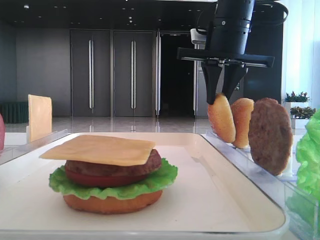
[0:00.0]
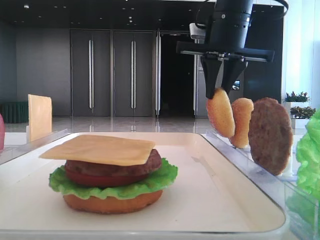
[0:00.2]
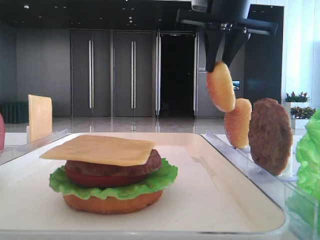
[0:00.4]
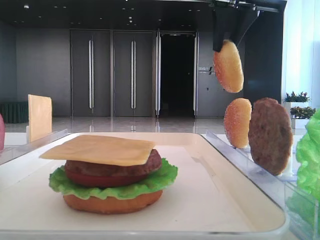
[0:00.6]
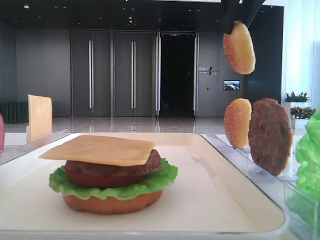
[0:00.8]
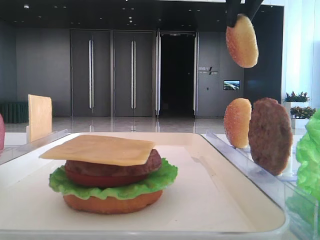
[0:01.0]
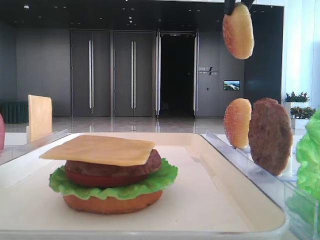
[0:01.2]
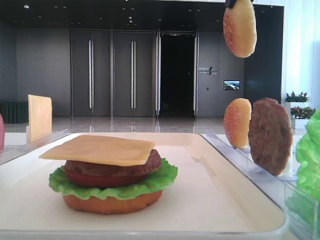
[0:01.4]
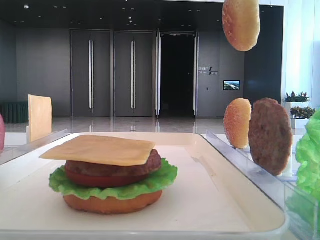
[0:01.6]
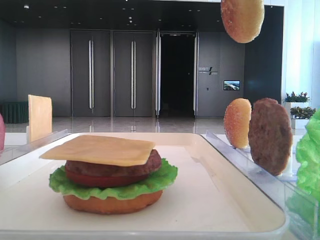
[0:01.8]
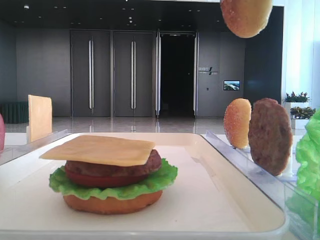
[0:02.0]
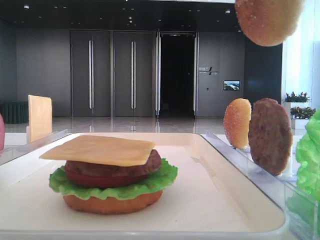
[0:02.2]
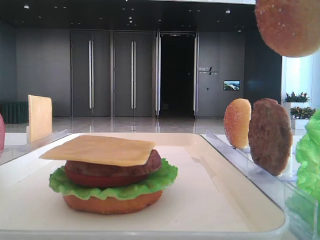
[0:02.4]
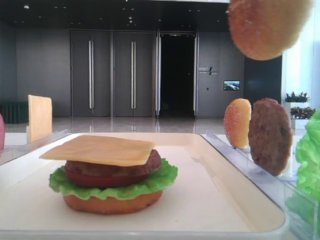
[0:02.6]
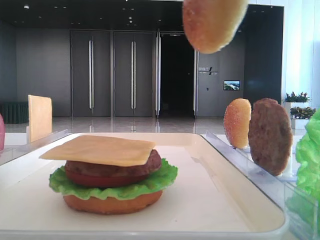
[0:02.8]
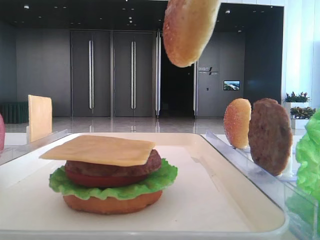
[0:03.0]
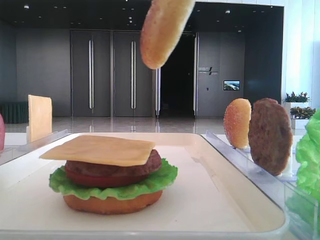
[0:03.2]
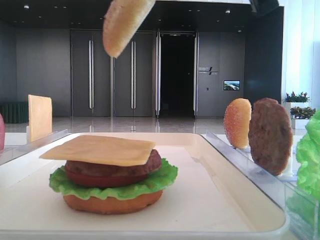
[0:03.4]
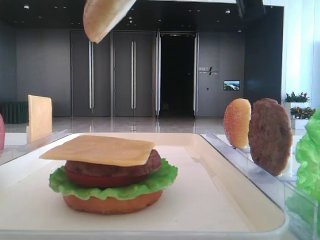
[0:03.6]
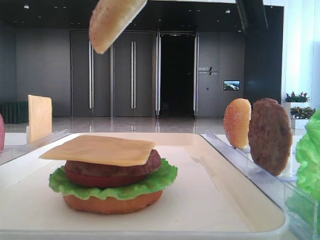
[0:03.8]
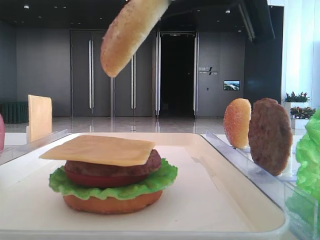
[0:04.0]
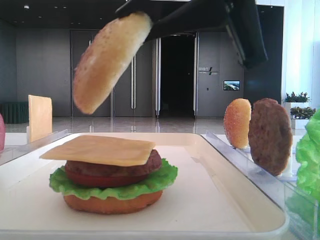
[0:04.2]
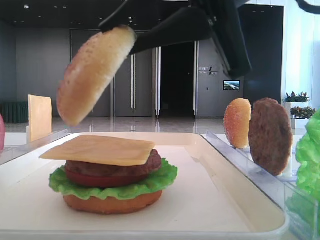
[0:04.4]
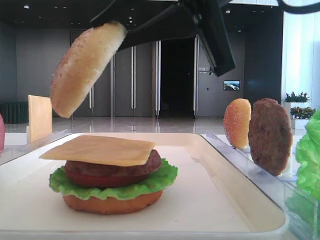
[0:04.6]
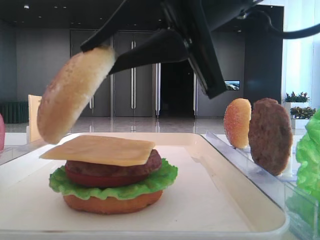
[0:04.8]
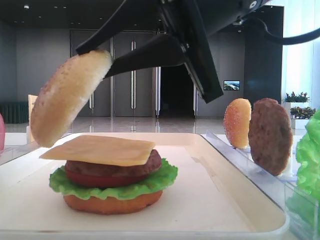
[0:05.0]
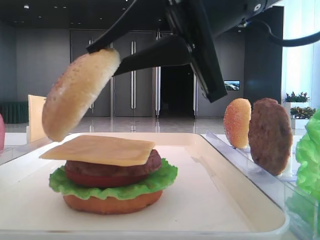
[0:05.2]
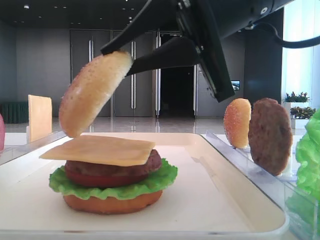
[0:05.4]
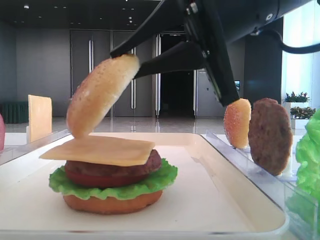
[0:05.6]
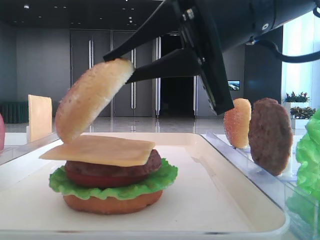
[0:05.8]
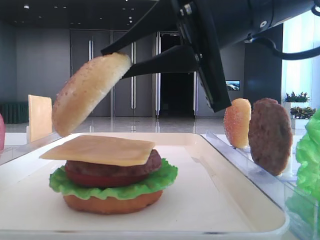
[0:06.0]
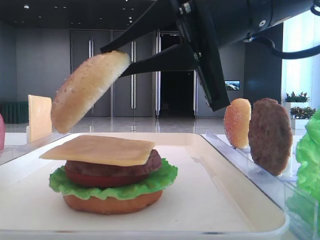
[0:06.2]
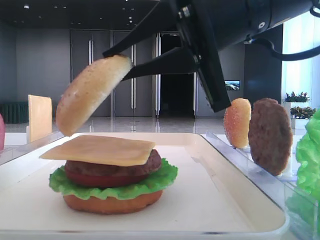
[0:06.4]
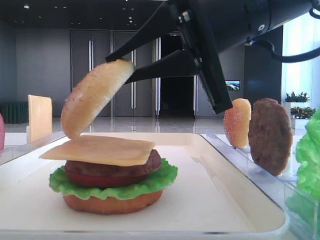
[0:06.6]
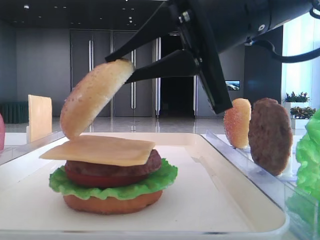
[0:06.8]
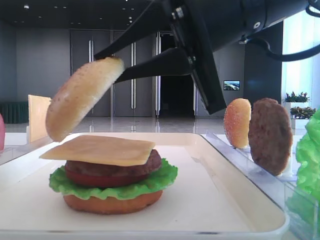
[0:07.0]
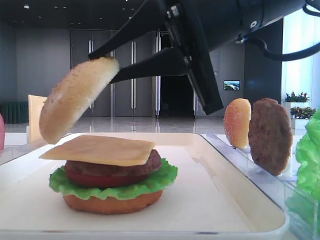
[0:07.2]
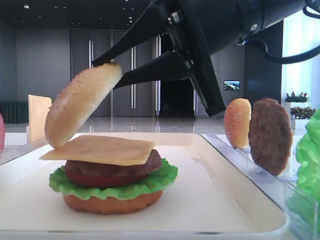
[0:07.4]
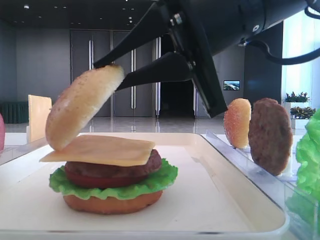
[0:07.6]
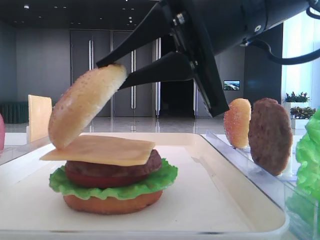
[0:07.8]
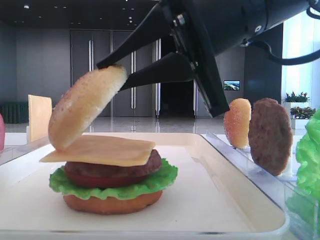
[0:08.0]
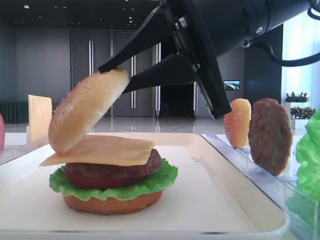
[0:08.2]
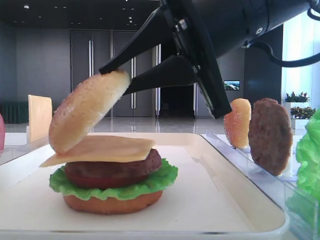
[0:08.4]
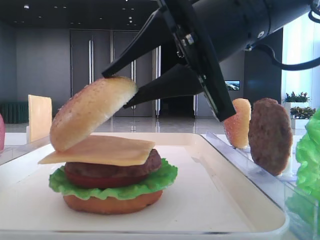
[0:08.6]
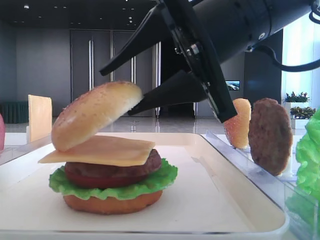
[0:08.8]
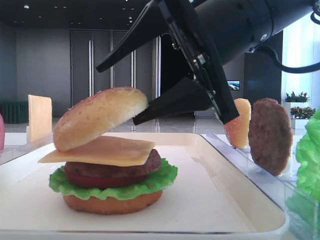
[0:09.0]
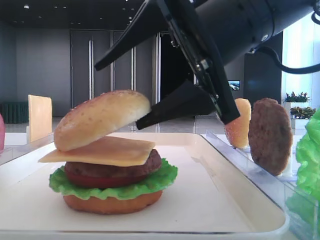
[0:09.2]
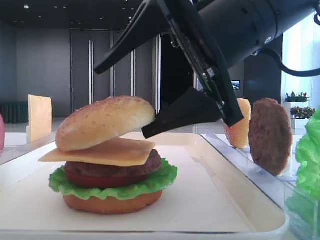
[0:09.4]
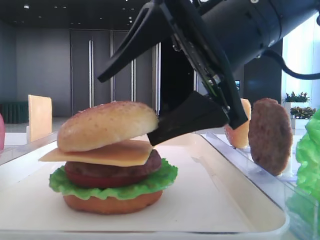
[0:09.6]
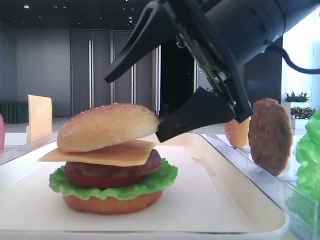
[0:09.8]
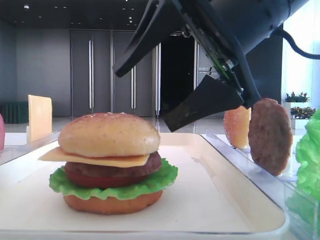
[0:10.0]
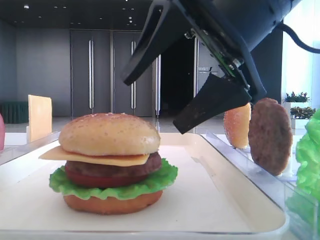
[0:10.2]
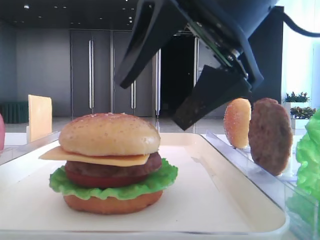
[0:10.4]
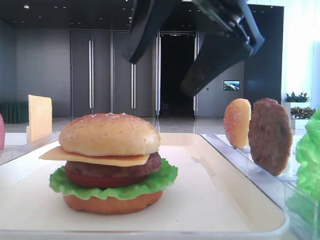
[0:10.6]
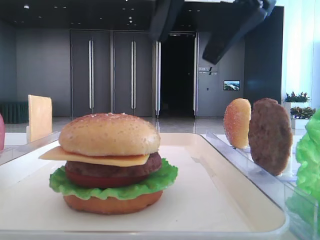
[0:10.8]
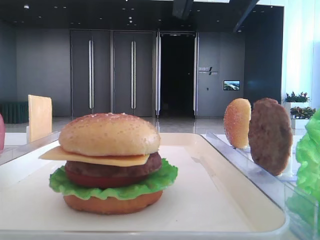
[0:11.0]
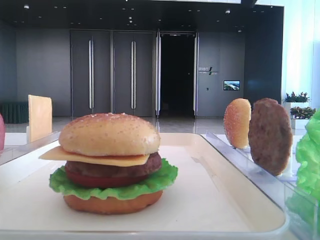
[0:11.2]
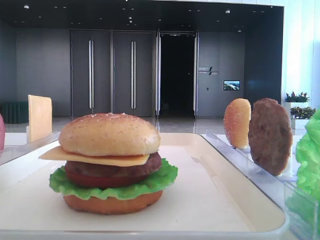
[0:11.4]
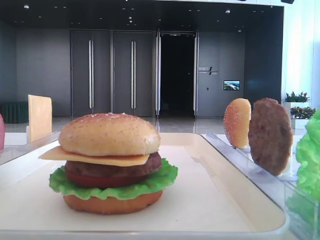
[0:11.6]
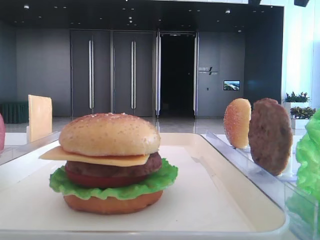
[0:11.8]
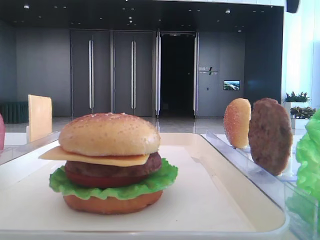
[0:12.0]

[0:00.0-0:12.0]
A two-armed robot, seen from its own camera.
Step, 0:00.0 to 0:09.8: Place the top bread slice on the cheese with the right hand.
0:00.0 to 0:01.6: The right gripper shifts about 20 cm upward and backward.
0:01.6 to 0:03.0: The right gripper travels backward and downward by some 15 cm.
0:03.0 to 0:04.4: The right gripper moves downward, some 10 cm.
0:04.4 to 0:06.0: The right gripper ends up roughly 5 cm from where it was.
0:06.0 to 0:07.6: The two grippers keep their place.
0:07.6 to 0:09.0: The right gripper opens up.
0:10.4 to 0:12.0: The right gripper is displaced upward, to the right and forward by approximately 25 cm.

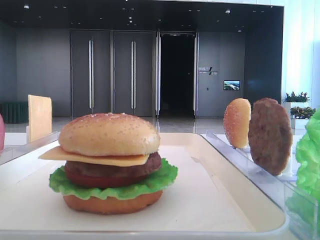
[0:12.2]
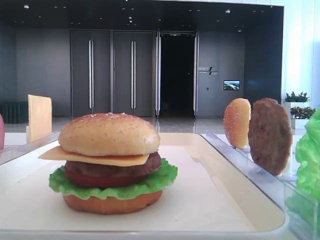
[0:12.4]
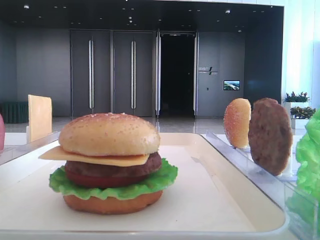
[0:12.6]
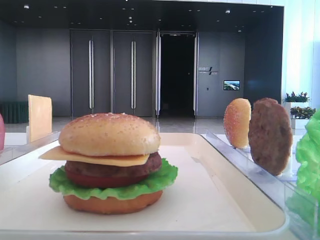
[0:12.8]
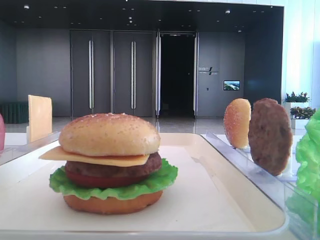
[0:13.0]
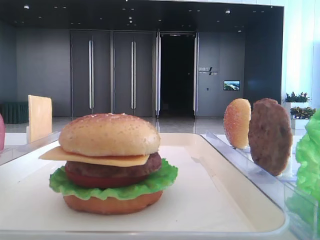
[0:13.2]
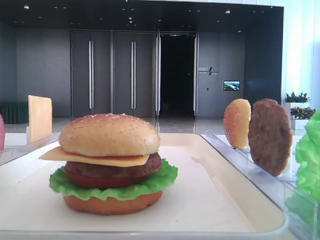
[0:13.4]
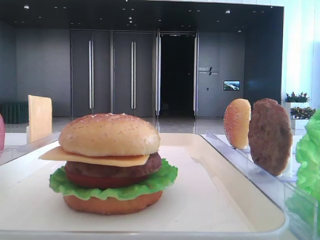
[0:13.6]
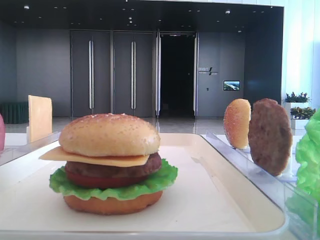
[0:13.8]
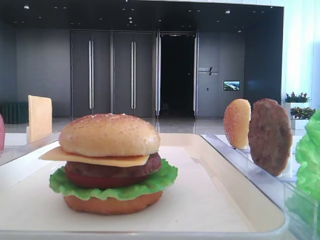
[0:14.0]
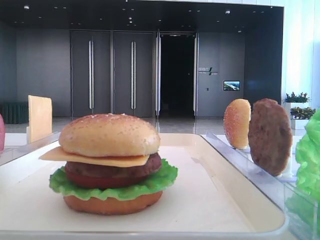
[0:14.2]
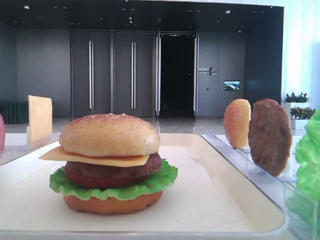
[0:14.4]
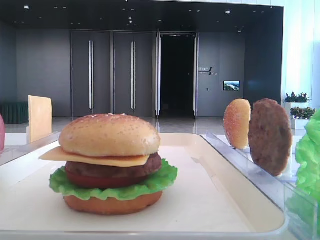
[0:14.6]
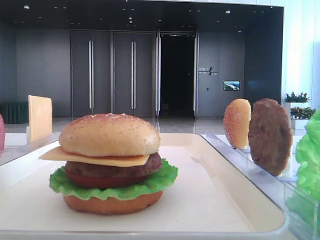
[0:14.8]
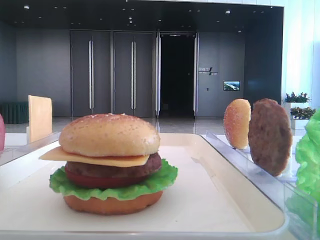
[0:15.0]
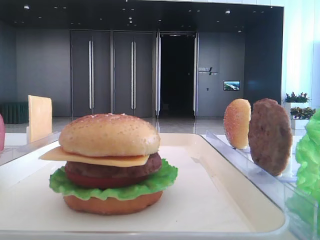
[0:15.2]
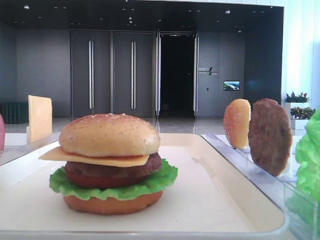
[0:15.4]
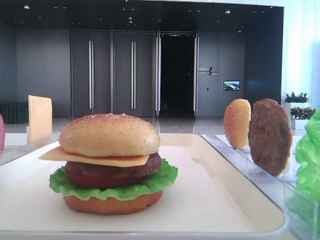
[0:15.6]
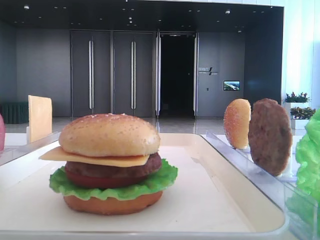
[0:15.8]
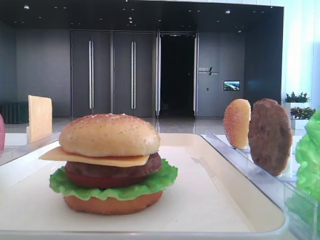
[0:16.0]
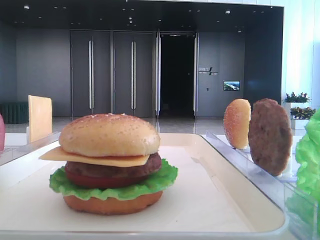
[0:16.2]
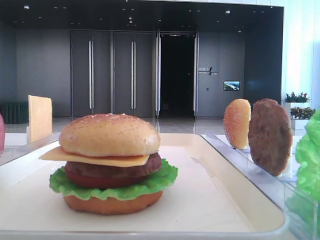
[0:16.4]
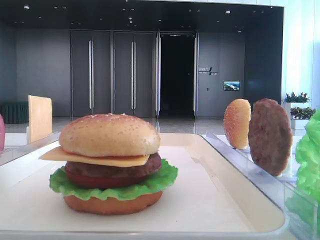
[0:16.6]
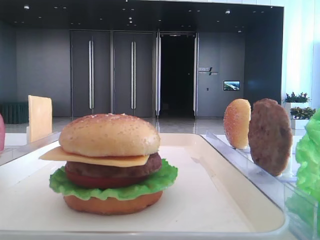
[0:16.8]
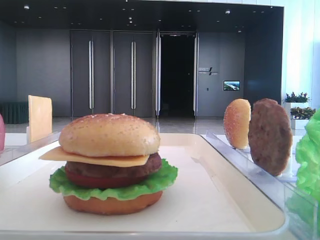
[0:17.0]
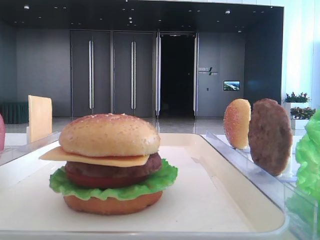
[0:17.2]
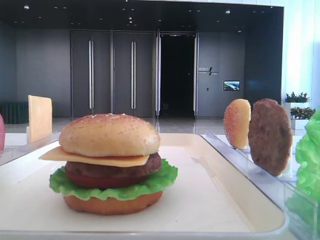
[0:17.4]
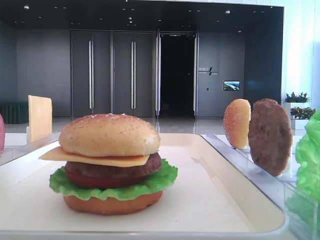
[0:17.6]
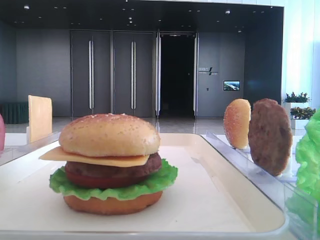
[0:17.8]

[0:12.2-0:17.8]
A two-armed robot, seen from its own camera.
0:15.0 to 0:17.8: Neither gripper changes place.
